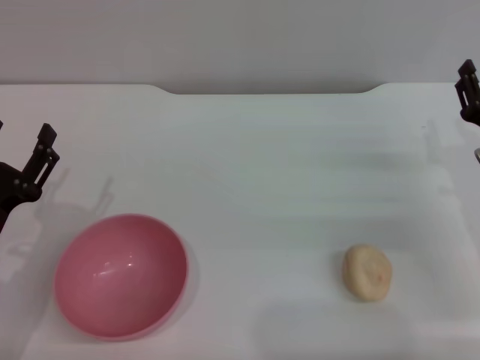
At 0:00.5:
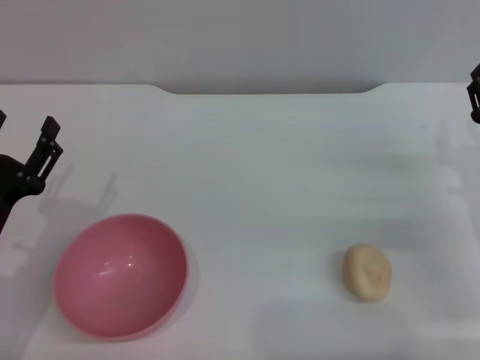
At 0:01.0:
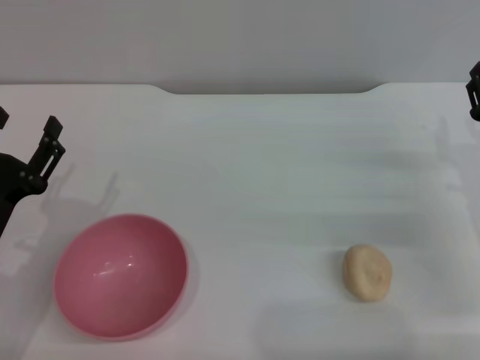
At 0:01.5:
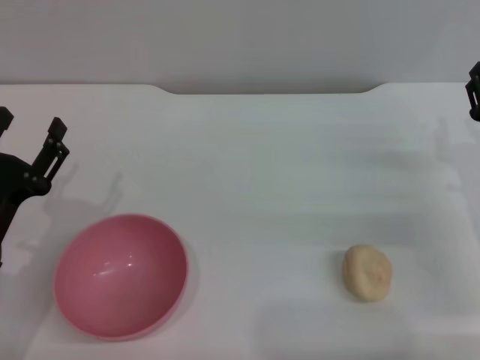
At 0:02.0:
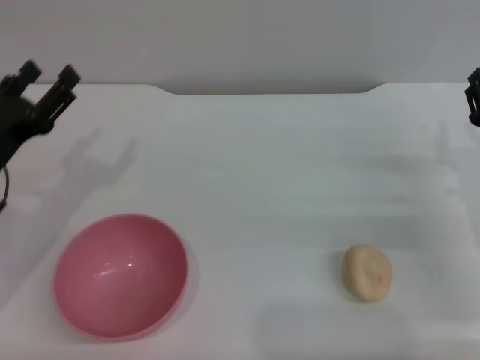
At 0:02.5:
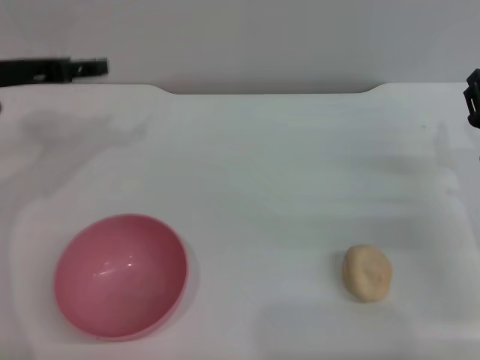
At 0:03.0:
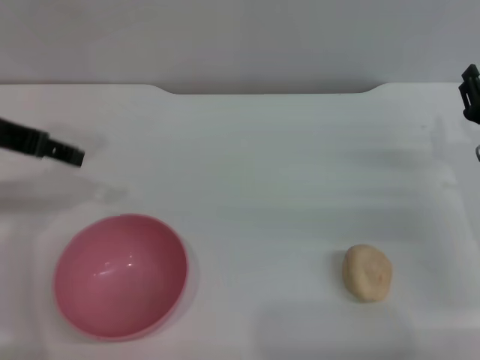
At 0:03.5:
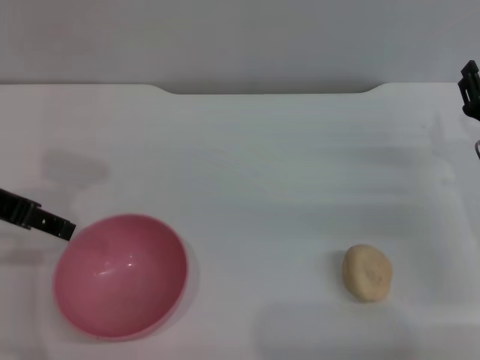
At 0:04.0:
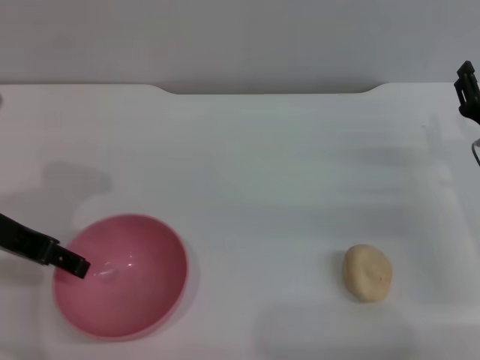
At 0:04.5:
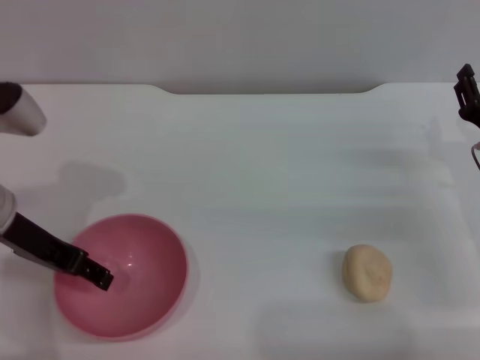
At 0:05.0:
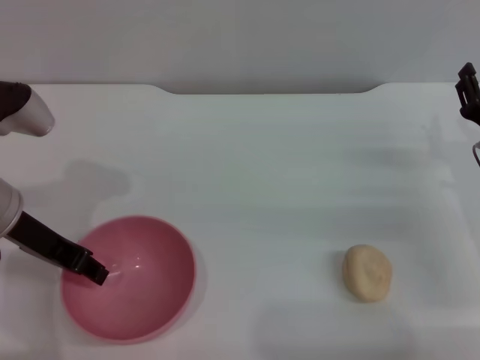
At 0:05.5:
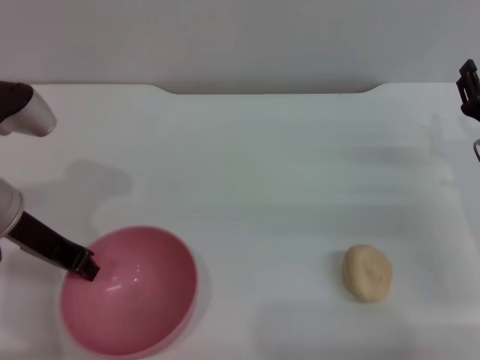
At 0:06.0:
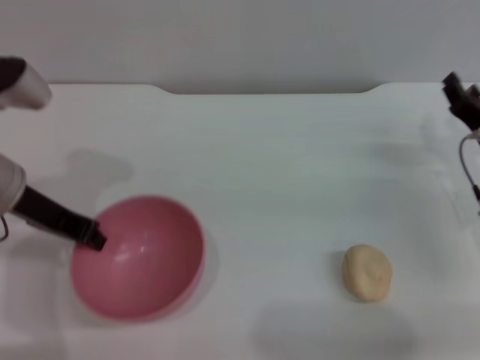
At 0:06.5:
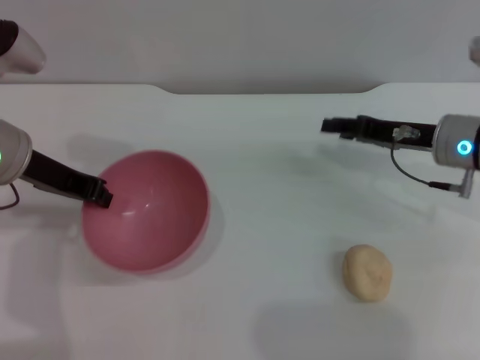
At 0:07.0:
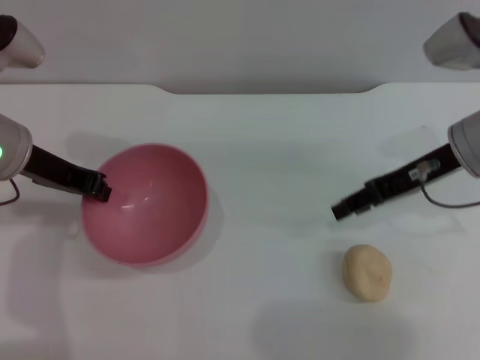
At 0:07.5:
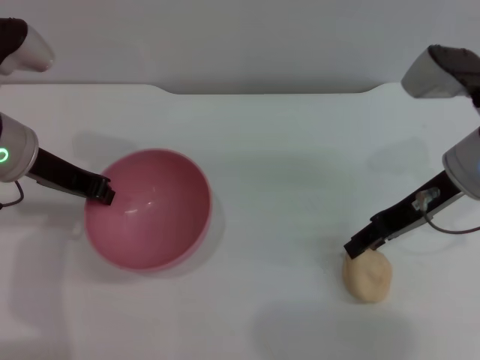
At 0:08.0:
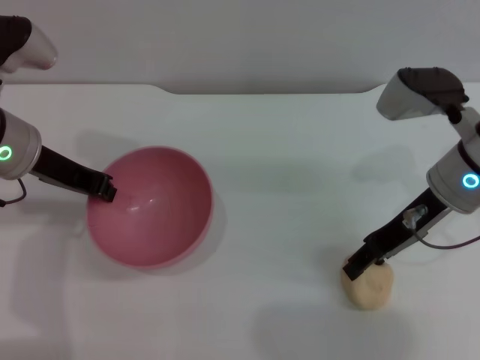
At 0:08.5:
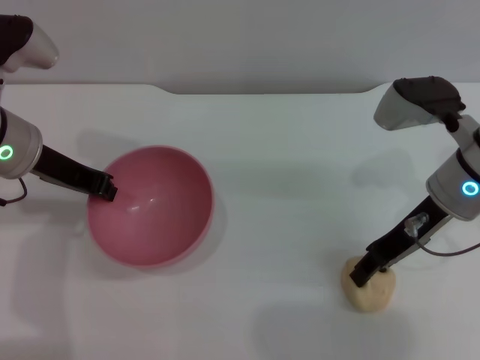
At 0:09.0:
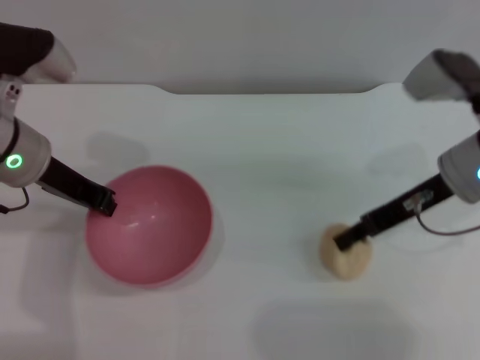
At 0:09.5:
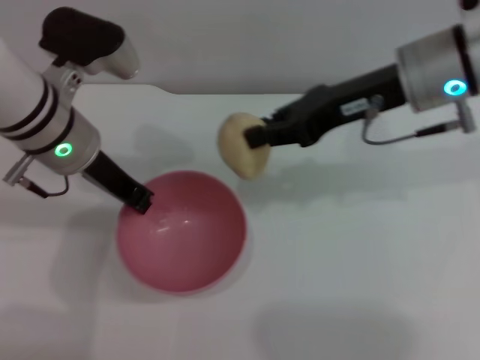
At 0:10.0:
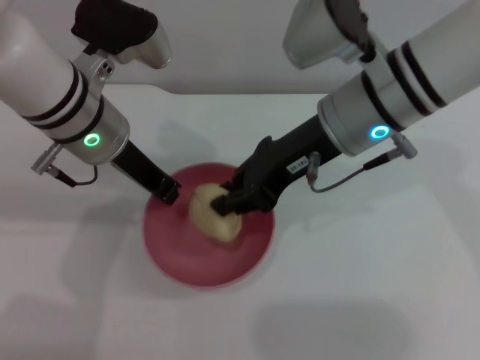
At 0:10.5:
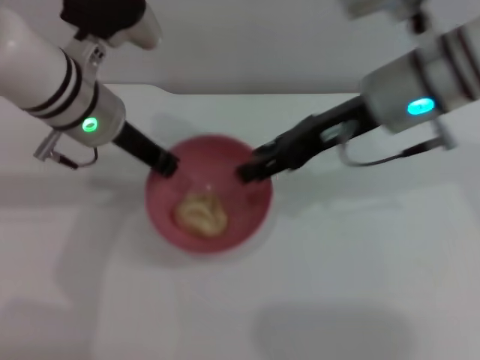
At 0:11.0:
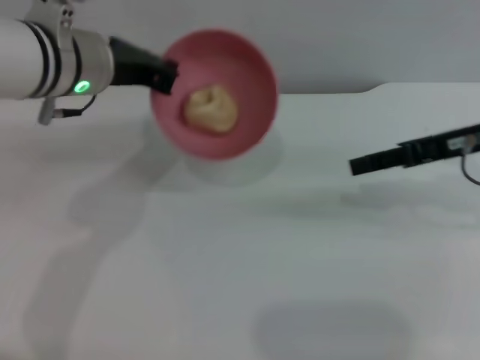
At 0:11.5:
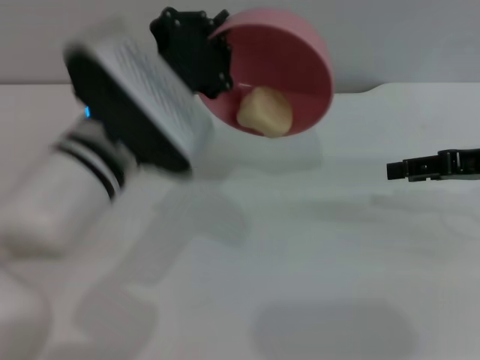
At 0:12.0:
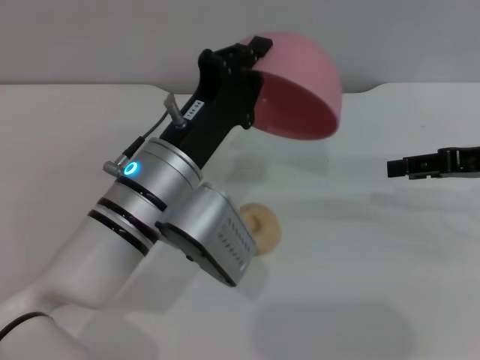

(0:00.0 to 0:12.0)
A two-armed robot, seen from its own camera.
Task of the whole recording: put the egg yolk pastry into the pink bowl and pour it out repeatedly.
Step, 0:00.0 - 0:06.0: Pick up the bowl with the left gripper.
Step, 0:06.5 - 0:09.0: Pick up the egg yolk pastry with the right gripper.
Step, 0:09.5 - 0:10.0: Place the egg yolk pastry into the bowl.
Step, 0:10.5 - 0:12.0: Pour the egg yolk pastry out of bowl.
0:00.0 - 0:02.0: The left gripper moves forward, approximately 10 cm.
0:02.0 - 0:04.0: The left gripper is displaced upward by approximately 10 cm.
0:04.0 - 0:06.0: The left gripper closes its fingers.
0:06.0 - 0:08.0: The right gripper goes roughly 10 cm upward and to the left.
0:08.0 - 0:10.0: The right gripper travels to the left and upward by roughly 10 cm, and closes; the left gripper moves to the right, roughly 10 cm.
0:10.0 - 0:12.0: The left gripper moves backward, downward and to the right, some 15 cm; the right gripper goes roughly 20 cm to the right, and opens.

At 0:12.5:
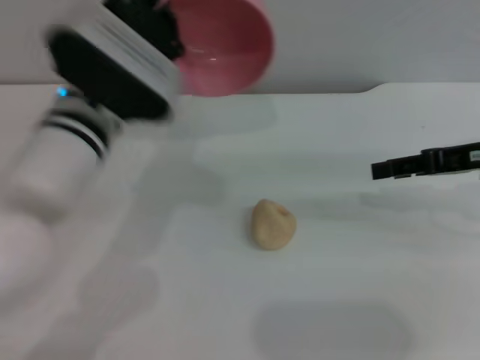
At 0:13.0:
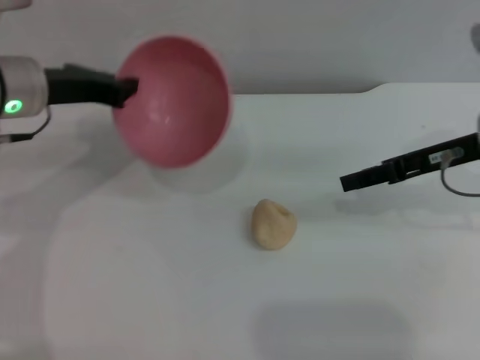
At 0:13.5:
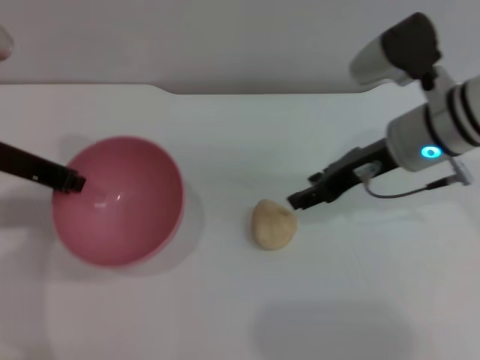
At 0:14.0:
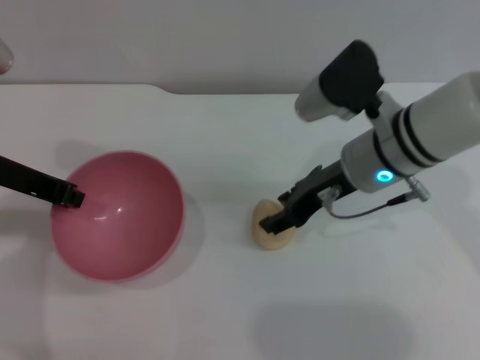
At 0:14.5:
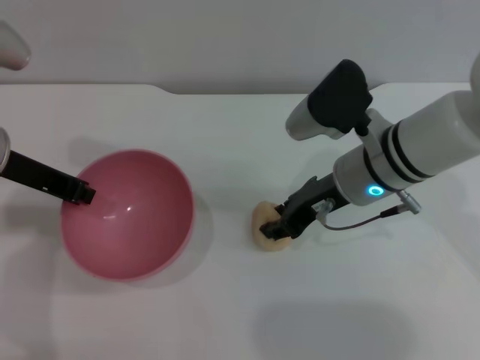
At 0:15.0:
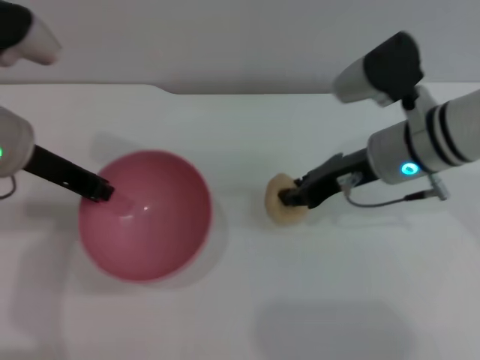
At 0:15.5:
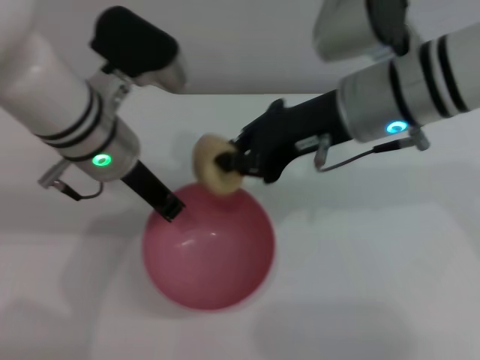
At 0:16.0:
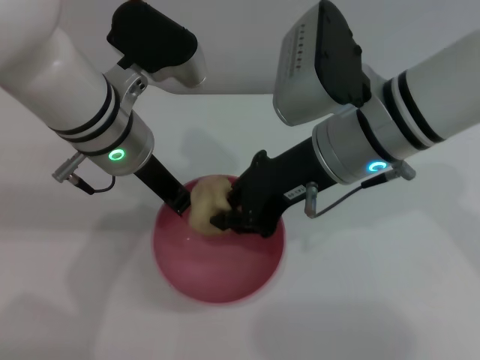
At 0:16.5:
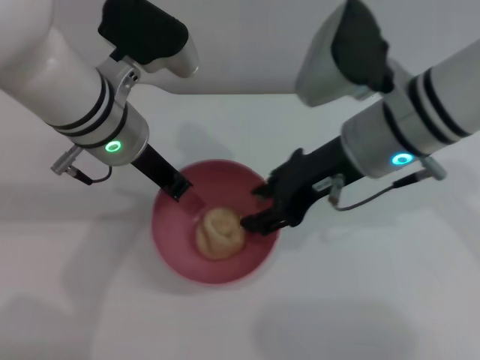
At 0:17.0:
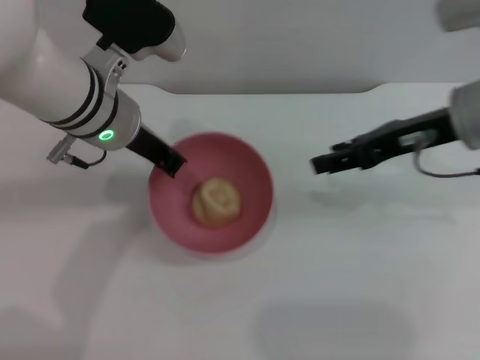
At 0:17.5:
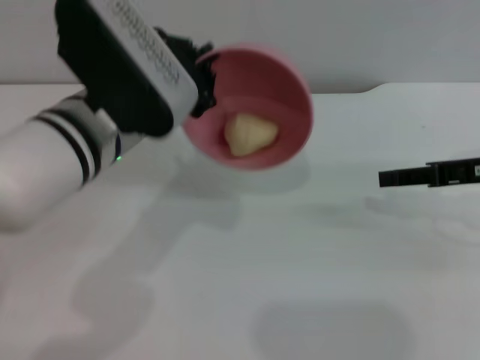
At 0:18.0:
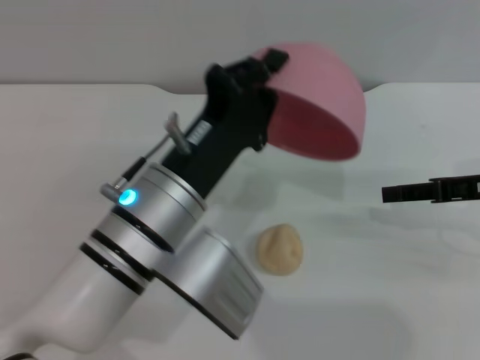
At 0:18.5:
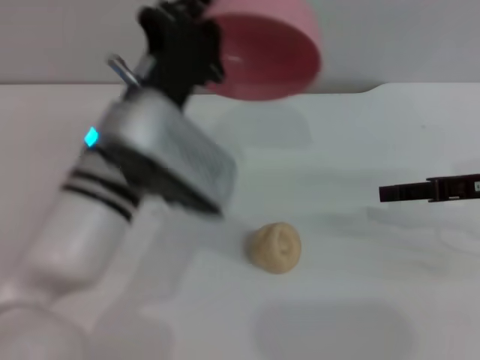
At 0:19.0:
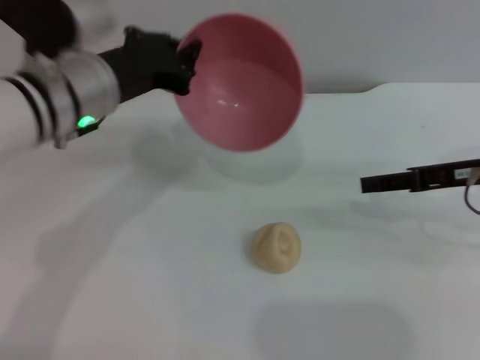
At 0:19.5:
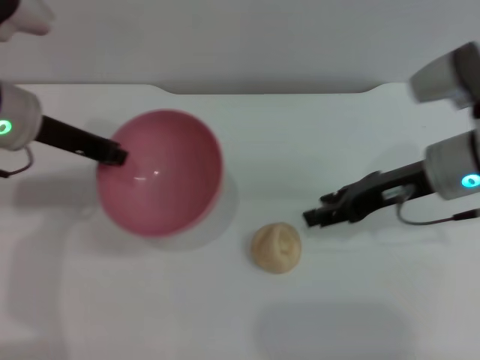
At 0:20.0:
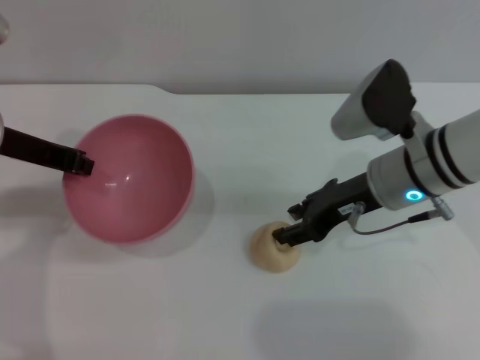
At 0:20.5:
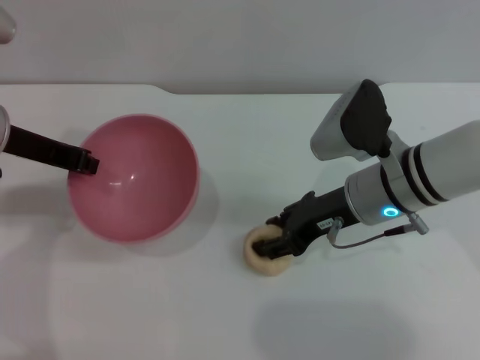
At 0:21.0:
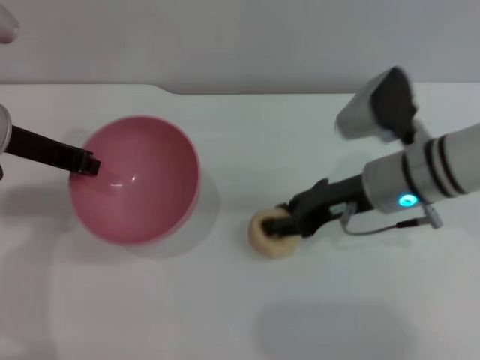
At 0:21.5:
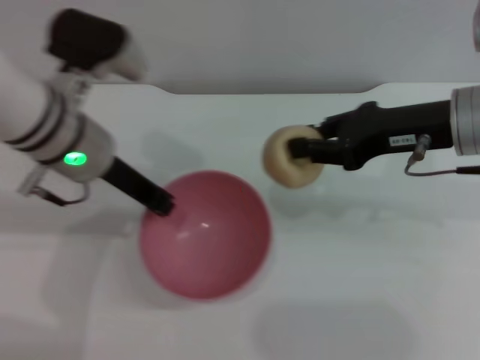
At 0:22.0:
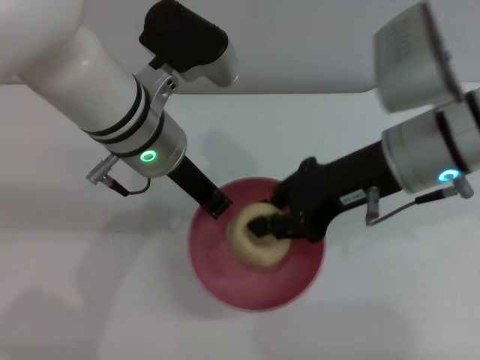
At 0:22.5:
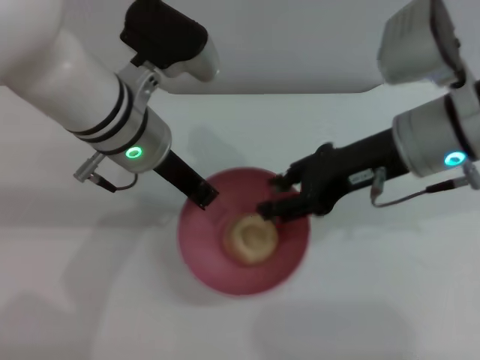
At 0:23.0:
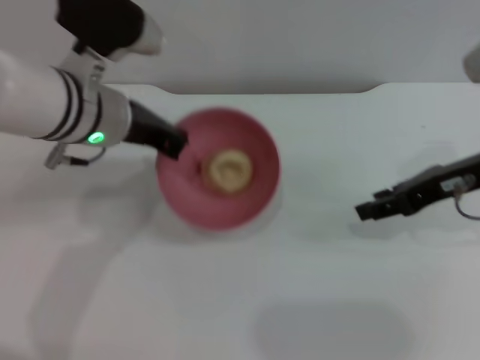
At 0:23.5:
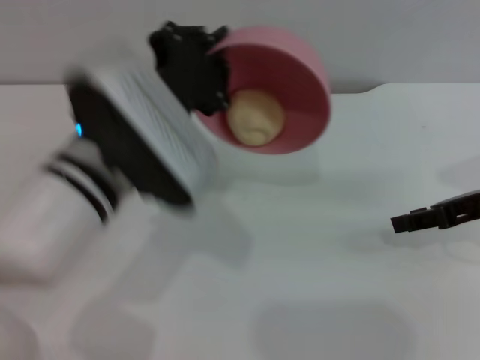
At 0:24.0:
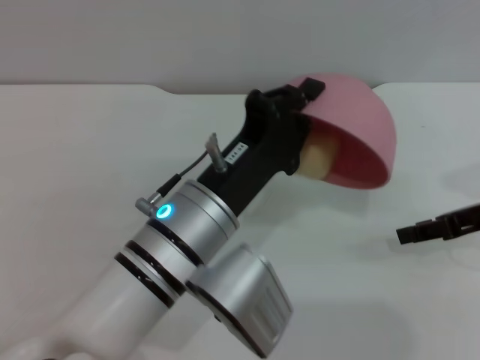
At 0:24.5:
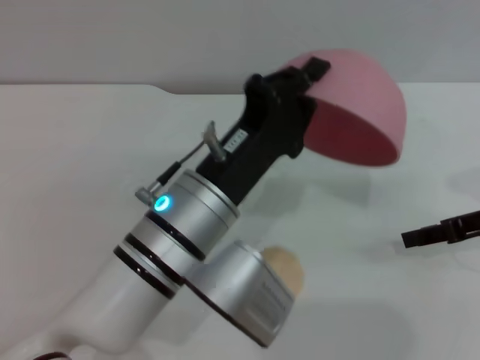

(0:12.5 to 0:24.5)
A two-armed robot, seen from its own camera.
Task of the whole recording: put the egg yolk pastry into the pink bowl and pour it out repeatedly.
Step, 0:12.5 - 0:15.0: Pick up the egg yolk pastry with the right gripper.
Step, 0:15.5 - 0:16.0: Place the egg yolk pastry into the bowl.
Step, 0:17.0 - 0:17.5: Pour the egg yolk pastry out of bowl.
Step, 0:18.0 - 0:21.0: Pick up the egg yolk pastry with the right gripper.
Step, 0:21.5 - 0:22.5: Place the egg yolk pastry into the bowl.
Step, 0:23.0 - 0:24.0: Pour the egg yolk pastry out of bowl.
0:12.5 - 0:14.5: Both grippers travel together to the left, approximately 15 cm.
0:14.5 - 0:16.5: The right gripper moves upward, about 10 cm, and closes, then opens again. Meanwhile the left gripper is displaced to the right by some 10 cm.
0:16.5 - 0:18.5: The left gripper shifts roughly 10 cm backward. Meanwhile the right gripper moves to the right, approximately 20 cm.
0:18.5 - 0:20.5: The left gripper heads to the left and forward, covering roughly 15 cm. The right gripper goes approximately 15 cm to the left.
0:20.5 - 0:22.5: The right gripper travels upward by roughly 10 cm, and closes and opens again. Meanwhile the left gripper heads to the right, covering approximately 15 cm.
0:22.5 - 0:24.5: The left gripper goes roughly 15 cm backward and downward. The right gripper heads to the right and downward, covering approximately 15 cm.

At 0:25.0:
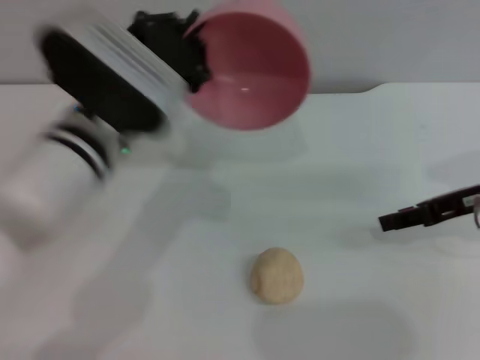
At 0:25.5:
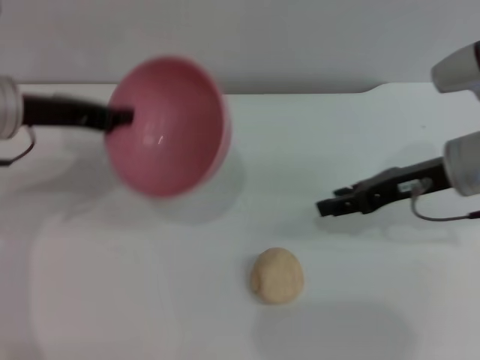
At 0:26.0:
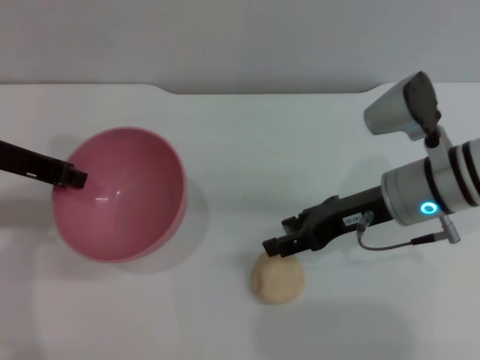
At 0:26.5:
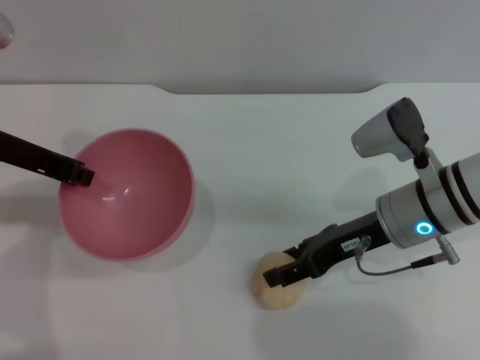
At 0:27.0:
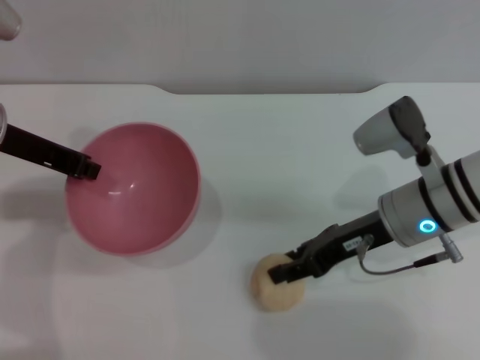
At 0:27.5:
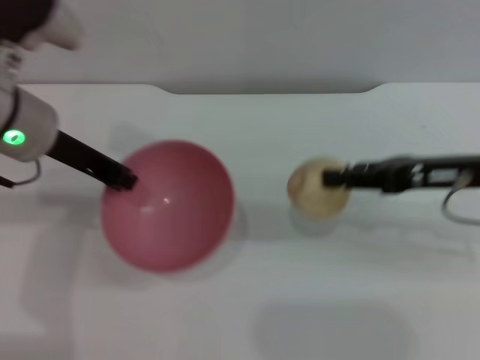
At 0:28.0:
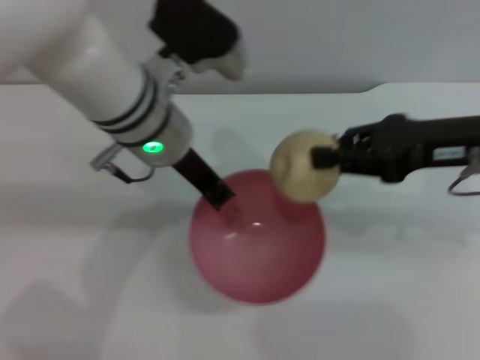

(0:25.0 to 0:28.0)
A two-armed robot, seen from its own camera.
Task of the whole recording: put the egg yolk pastry into the pink bowl and pour it out repeatedly.
Step, 0:25.0 - 0:27.0: Pick up the egg yolk pastry with the right gripper.
0:25.0 - 0:26.5: The two grippers go some 10 cm to the left.
0:26.5 - 0:28.0: The right gripper shifts about 10 cm upward and to the right, and closes its fingers. The left gripper shifts approximately 15 cm to the right.
